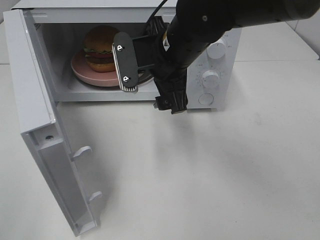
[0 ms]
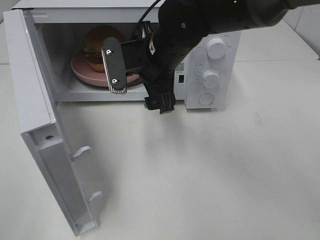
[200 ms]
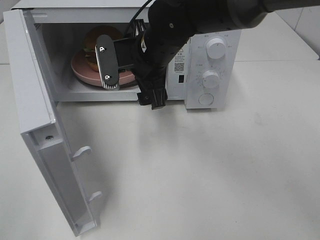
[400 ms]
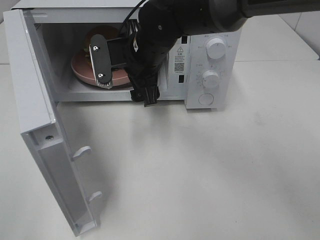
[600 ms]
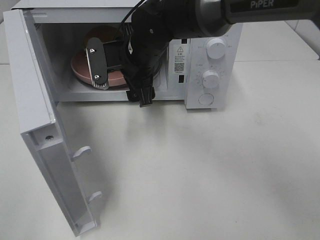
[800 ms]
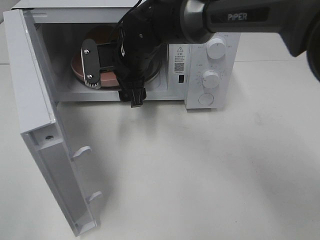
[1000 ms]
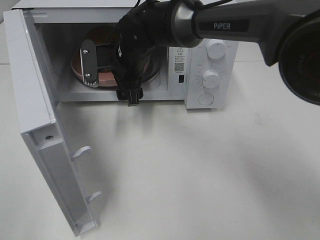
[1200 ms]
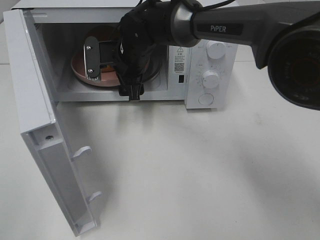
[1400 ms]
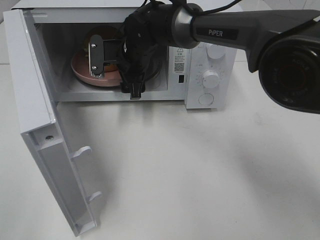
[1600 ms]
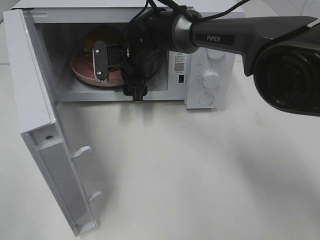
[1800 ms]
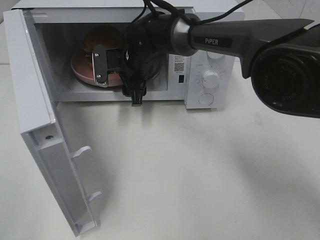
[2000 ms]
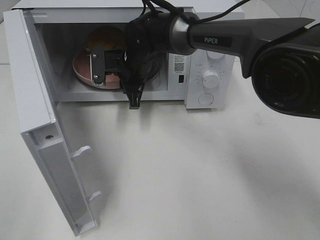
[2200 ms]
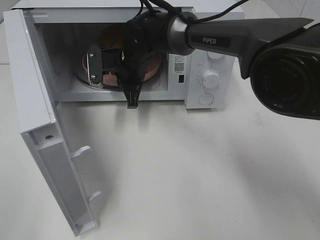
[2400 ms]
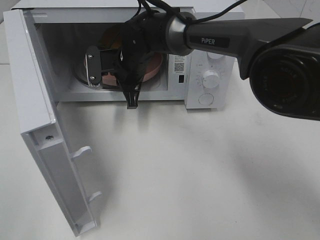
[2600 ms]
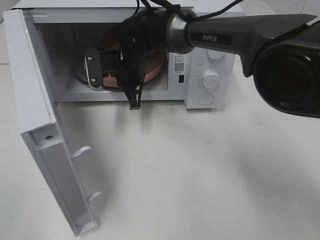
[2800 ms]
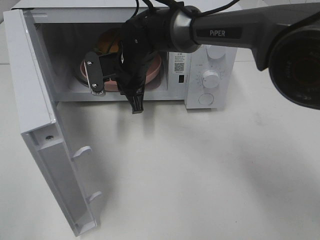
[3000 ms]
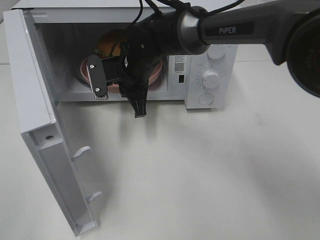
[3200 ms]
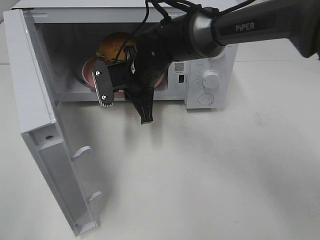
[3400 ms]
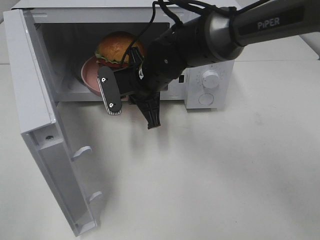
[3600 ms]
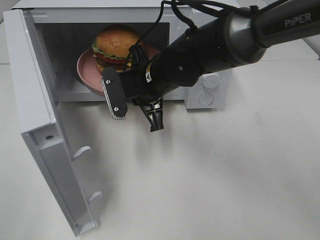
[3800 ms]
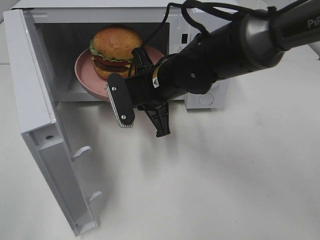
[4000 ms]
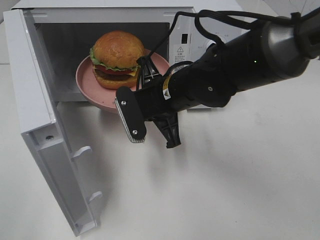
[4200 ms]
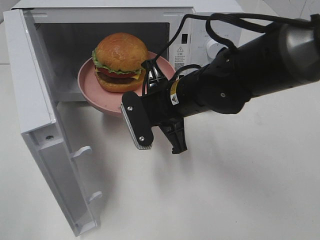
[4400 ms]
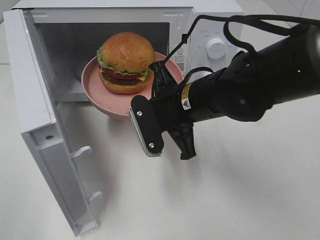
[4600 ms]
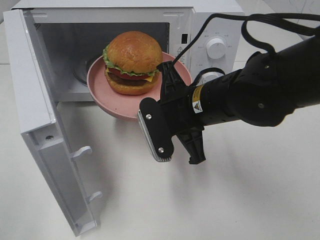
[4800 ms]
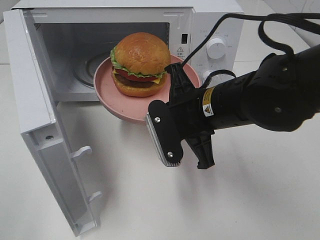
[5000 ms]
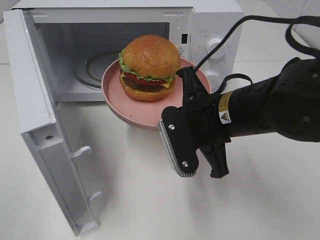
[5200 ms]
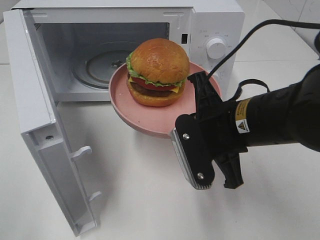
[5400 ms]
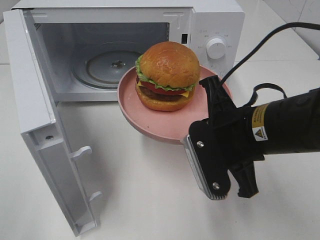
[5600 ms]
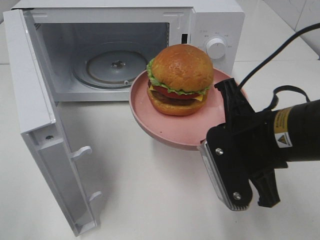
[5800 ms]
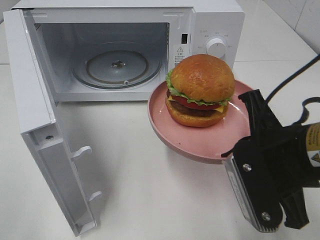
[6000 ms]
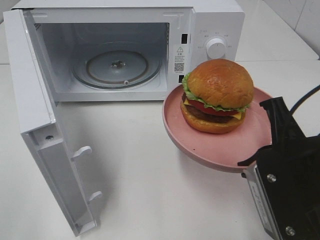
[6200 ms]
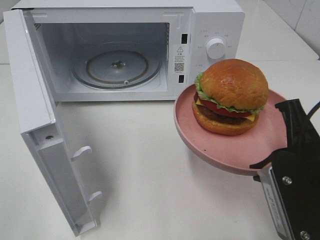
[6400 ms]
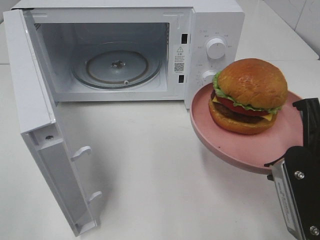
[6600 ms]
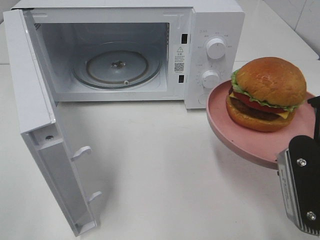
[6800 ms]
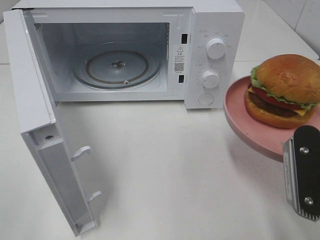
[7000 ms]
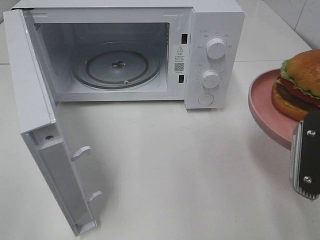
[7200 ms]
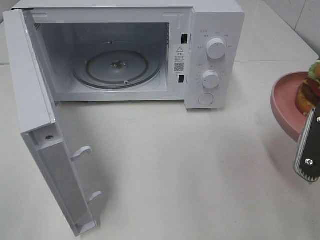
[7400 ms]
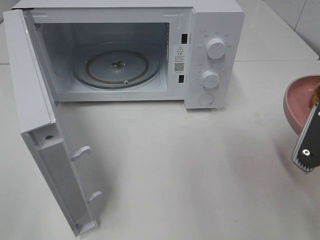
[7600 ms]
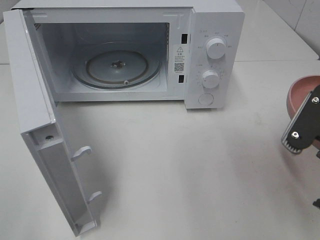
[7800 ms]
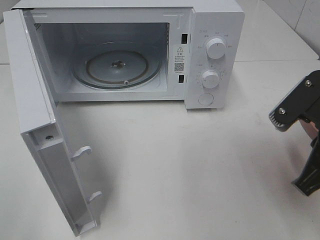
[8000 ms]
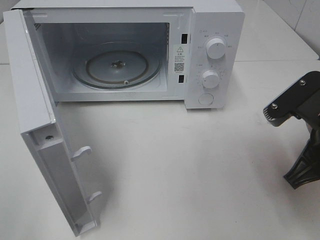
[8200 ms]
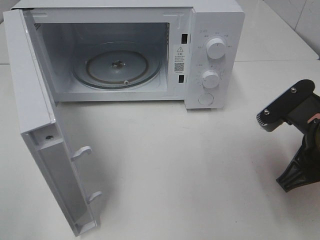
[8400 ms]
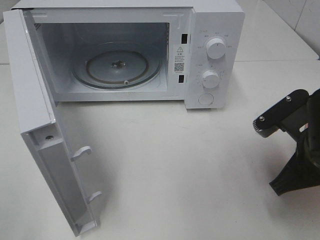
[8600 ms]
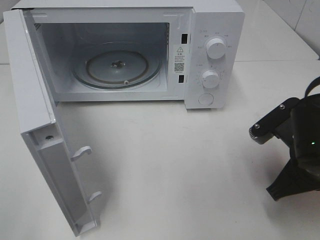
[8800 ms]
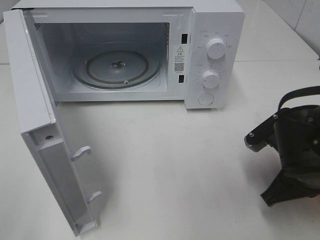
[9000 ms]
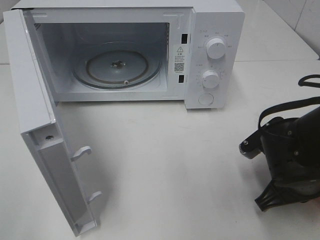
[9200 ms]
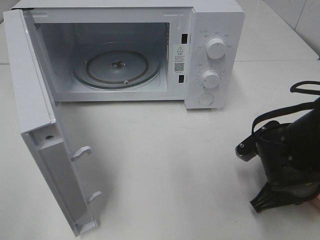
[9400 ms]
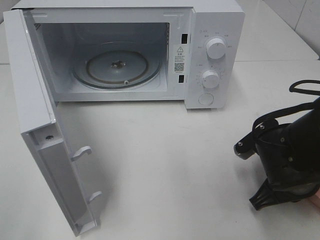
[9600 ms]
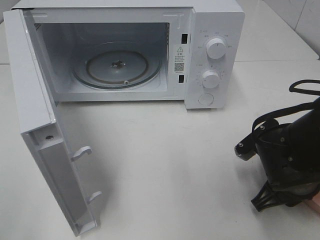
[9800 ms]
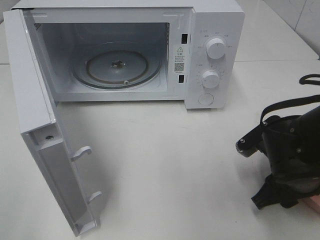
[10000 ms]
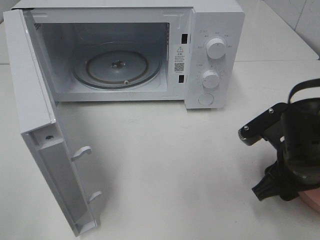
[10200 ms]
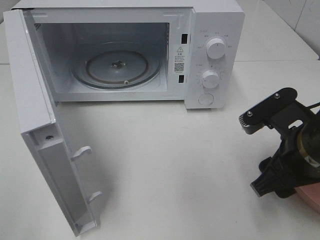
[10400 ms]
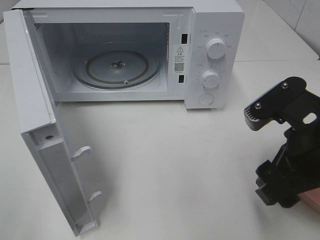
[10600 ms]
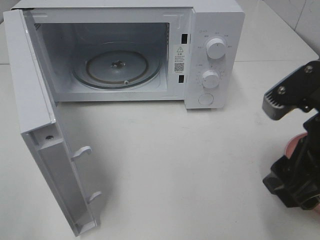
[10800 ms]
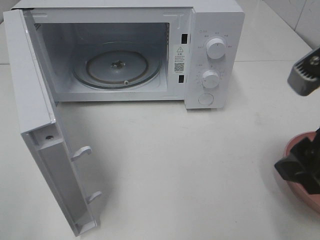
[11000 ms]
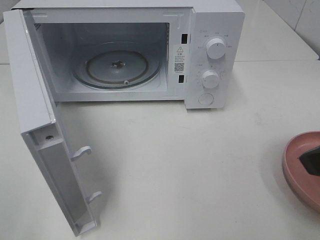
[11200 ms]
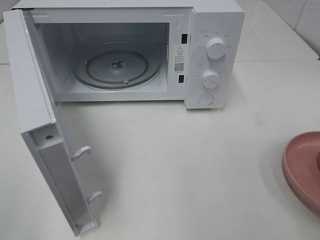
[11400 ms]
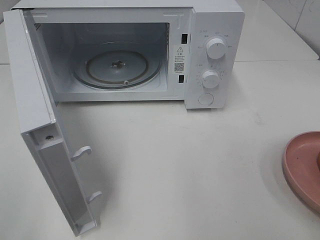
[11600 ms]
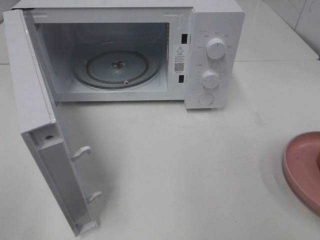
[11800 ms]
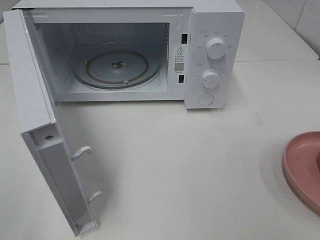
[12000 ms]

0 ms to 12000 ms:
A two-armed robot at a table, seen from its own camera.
Task of the whole recording: Heat the burger.
Step, 0 ms to 2200 ms: Right hand: grab the plate with the hamburger.
Step, 2400 ms to 9800 ms: Right hand: place the plate on the table.
0 ms to 1600 ms: The right gripper goes about 15 cm forward, downward and to the left.
1600 ms to 3000 ms: The right gripper closes.
3000 ms to 4400 ms: The right gripper moves backward and to the right, some 15 cm.
4400 ms to 6000 ms: The right gripper heads backward and to the right, covering about 20 cm.
6000 ms to 7600 ms: The right gripper travels to the right by approximately 5 cm.
7600 ms to 9000 ms: The right gripper goes approximately 10 cm downward and forward.
9000 ms to 10400 ms: The right gripper goes about 5 cm upward, and opens its fingers.
10400 ms to 12000 ms: The right gripper heads upward, backward and to the right, covering about 20 cm.

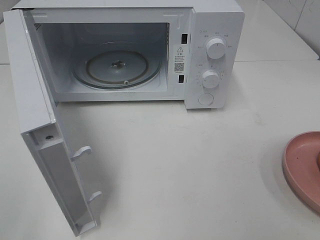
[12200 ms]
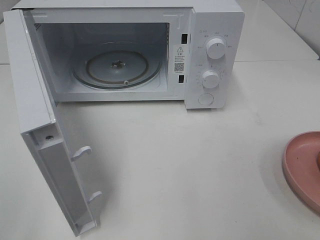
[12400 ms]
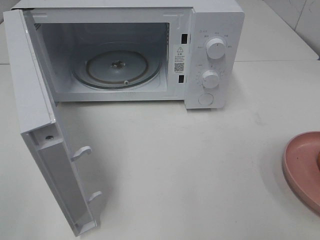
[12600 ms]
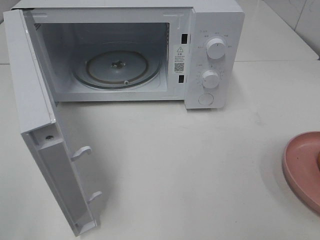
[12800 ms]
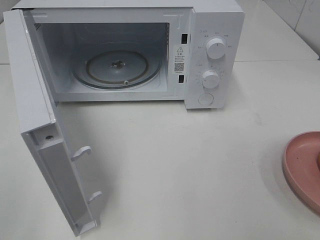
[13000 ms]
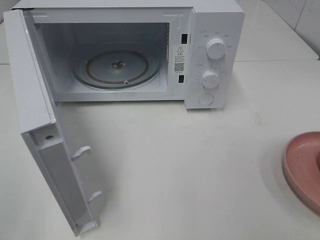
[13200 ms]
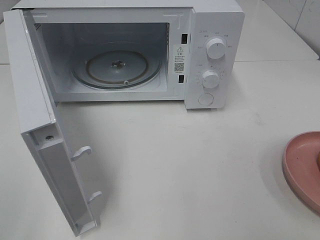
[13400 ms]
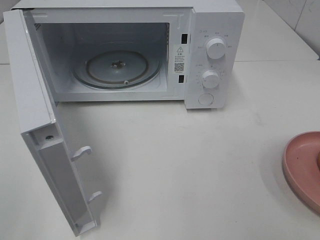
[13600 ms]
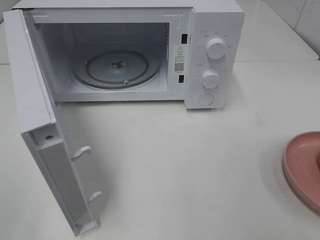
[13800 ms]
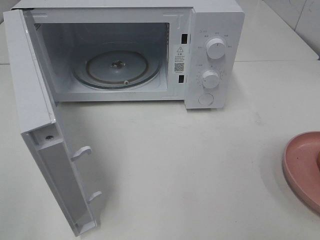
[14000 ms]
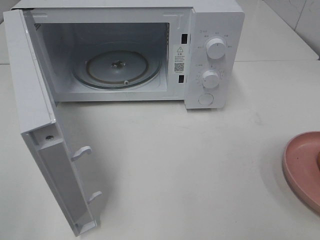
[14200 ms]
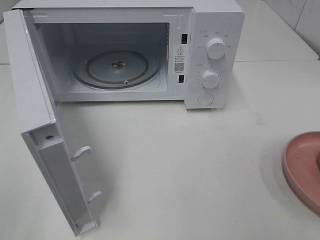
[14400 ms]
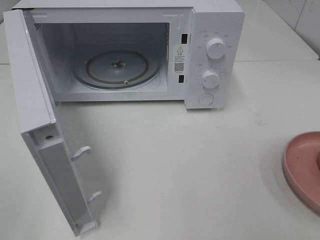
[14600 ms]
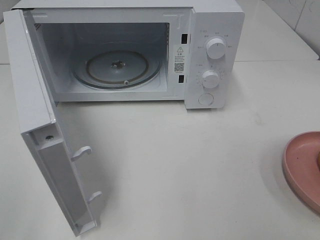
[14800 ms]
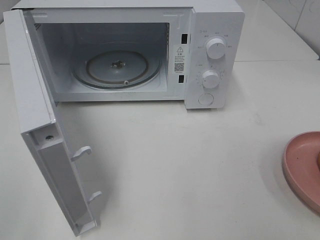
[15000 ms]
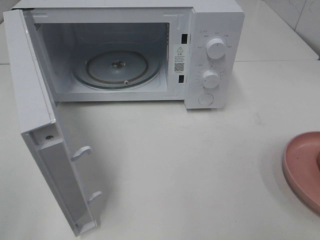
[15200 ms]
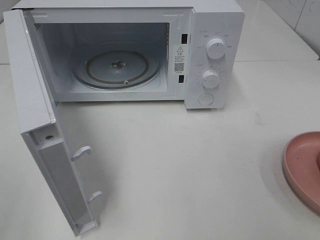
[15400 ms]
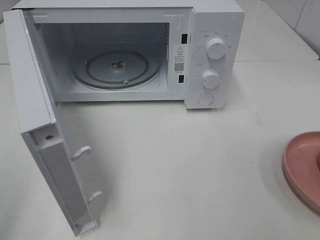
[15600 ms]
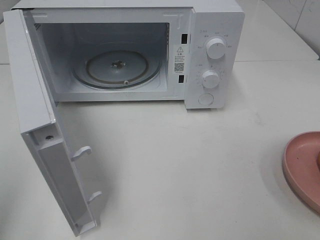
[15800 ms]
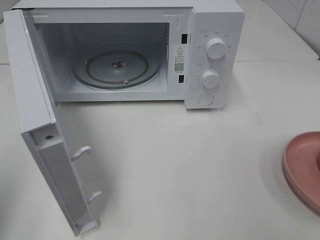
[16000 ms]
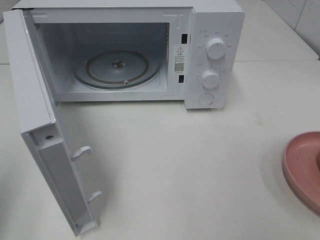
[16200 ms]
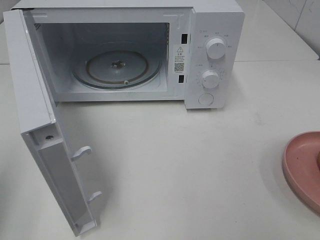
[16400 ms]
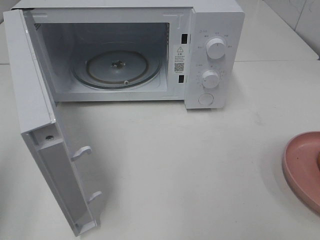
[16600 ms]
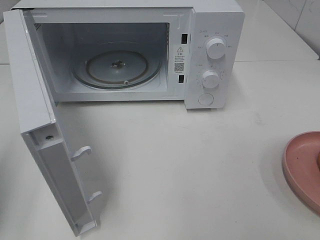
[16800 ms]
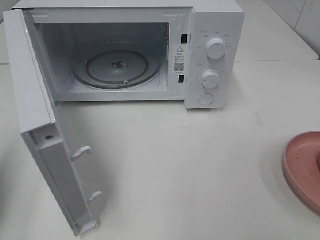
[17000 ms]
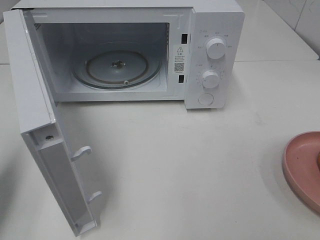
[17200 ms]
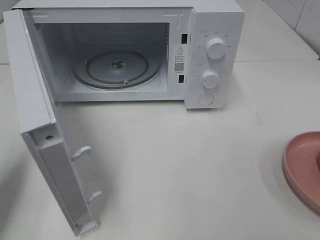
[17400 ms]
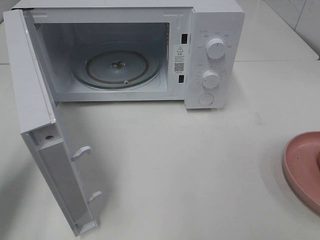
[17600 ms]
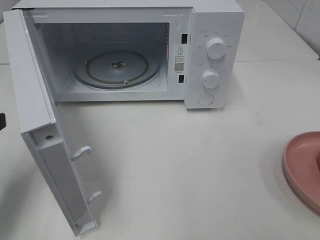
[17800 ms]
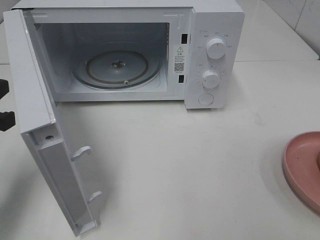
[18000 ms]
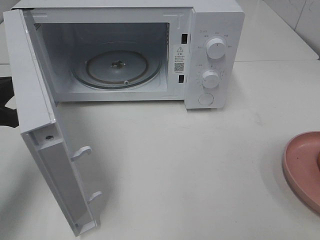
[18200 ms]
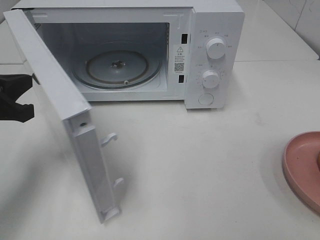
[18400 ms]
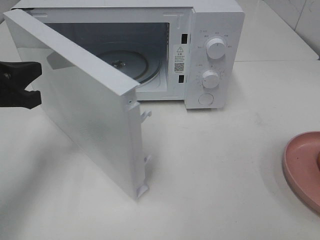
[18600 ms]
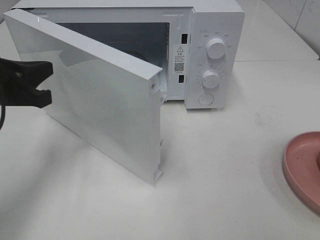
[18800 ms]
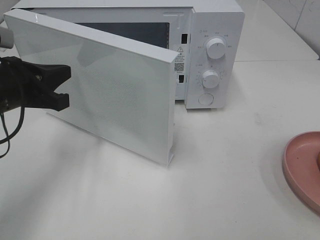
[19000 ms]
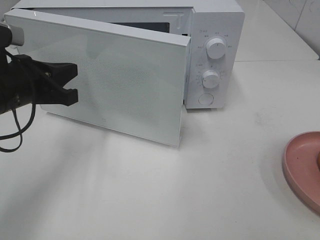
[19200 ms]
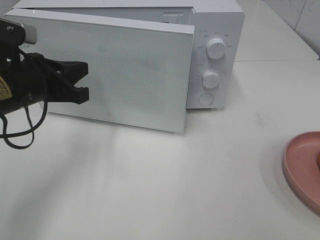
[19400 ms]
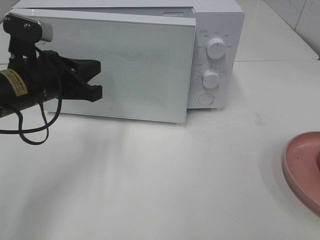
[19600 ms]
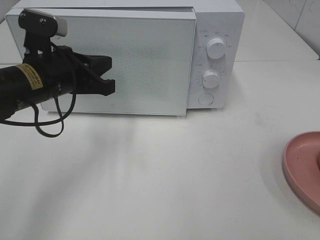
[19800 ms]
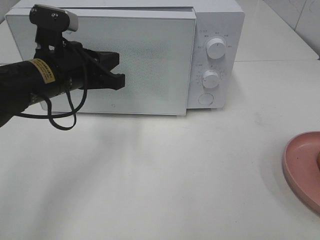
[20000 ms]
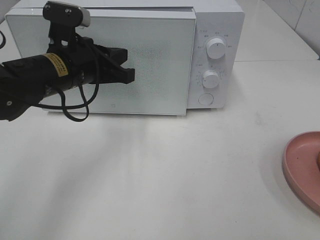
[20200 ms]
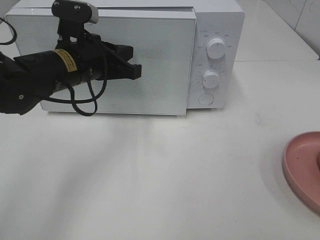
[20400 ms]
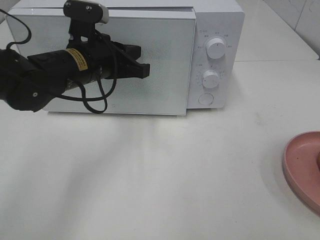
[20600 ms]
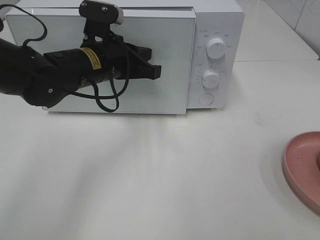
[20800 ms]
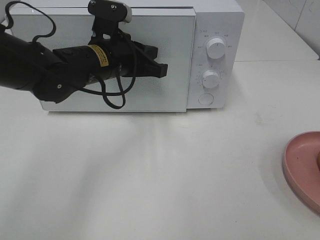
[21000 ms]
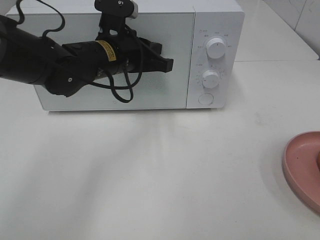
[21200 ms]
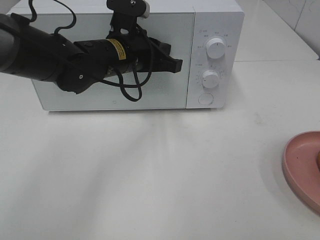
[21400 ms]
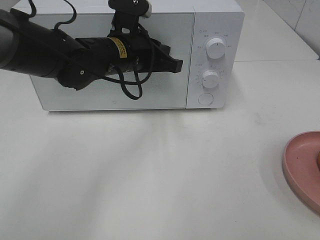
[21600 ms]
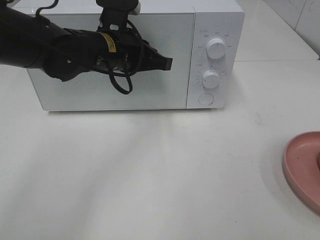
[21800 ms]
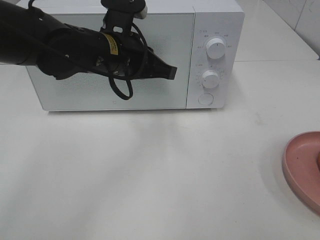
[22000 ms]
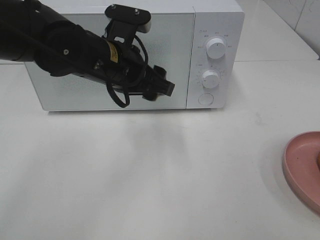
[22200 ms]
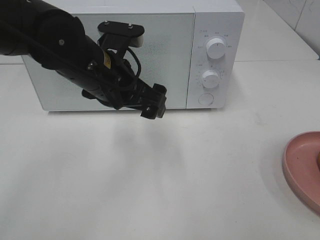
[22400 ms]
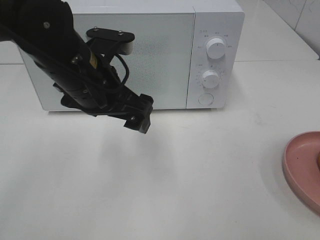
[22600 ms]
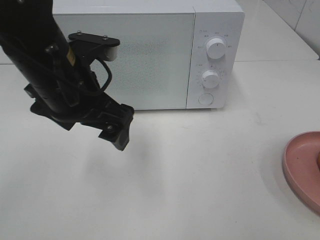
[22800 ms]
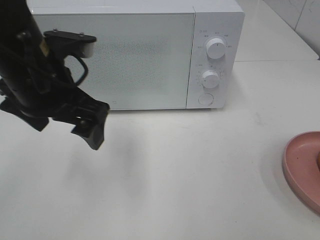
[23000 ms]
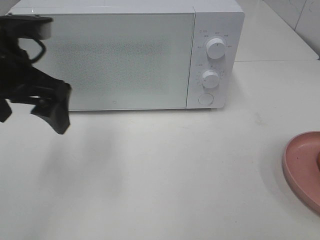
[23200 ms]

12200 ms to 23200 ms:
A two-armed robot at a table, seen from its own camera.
Task of the whole recording: Heat the burger.
Step, 12200 ms to 21800 ms: Left hand: close the microwave door.
15400 ms to 17000 ms: The left gripper shifts about 15 cm forward and downward, and closes its fingers.
17000 ms to 18400 ms: The left gripper moves forward and to the right, roughly 10 cm.
18400 ms to 20000 ms: The left gripper goes some 15 cm to the right and forward.
20000 ms to 21600 ms: The left gripper travels to the right and forward by some 10 cm.
21600 ms to 23200 ms: The left gripper is displaced to the left, backward and upward by approximately 20 cm, and opens its fingers.
